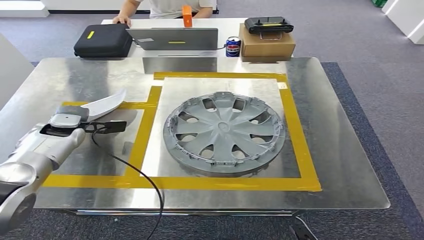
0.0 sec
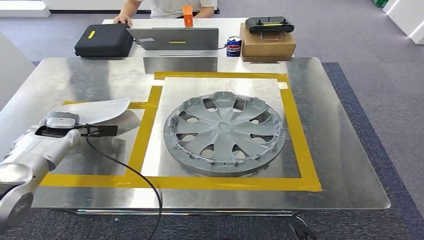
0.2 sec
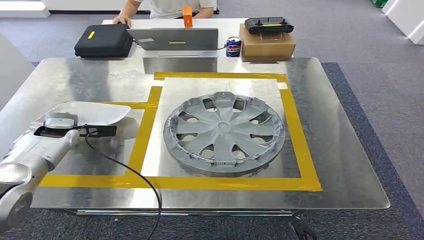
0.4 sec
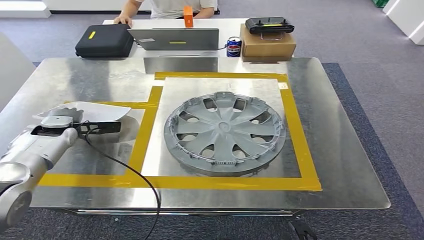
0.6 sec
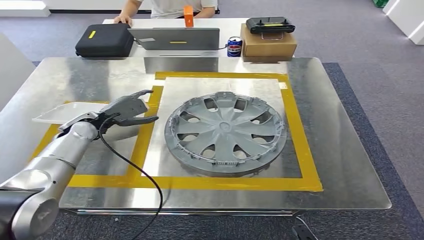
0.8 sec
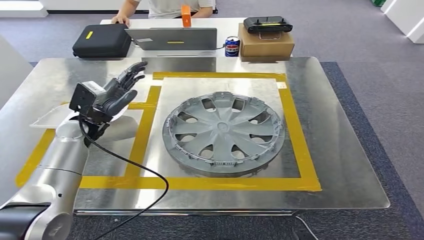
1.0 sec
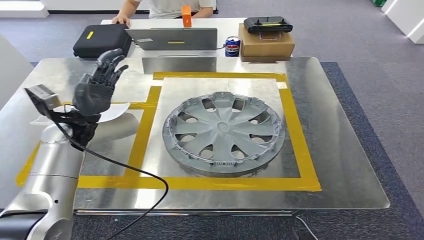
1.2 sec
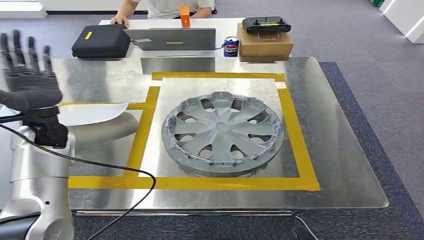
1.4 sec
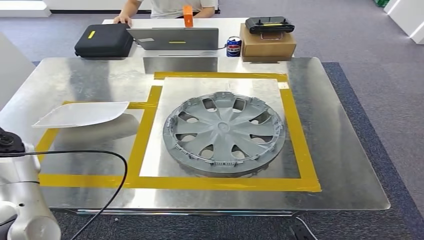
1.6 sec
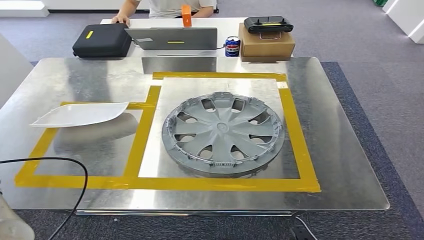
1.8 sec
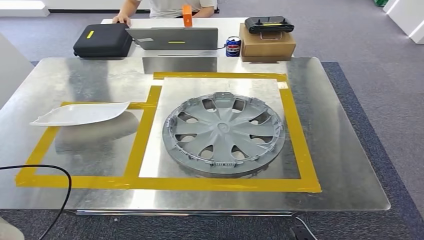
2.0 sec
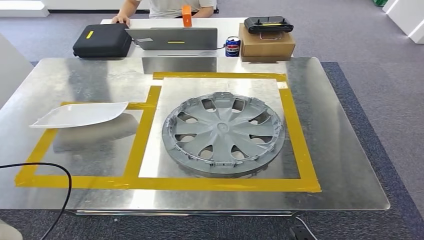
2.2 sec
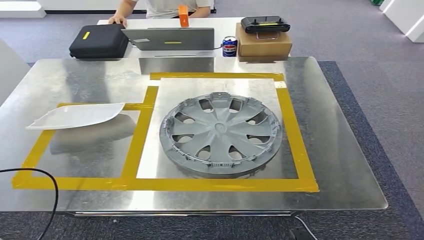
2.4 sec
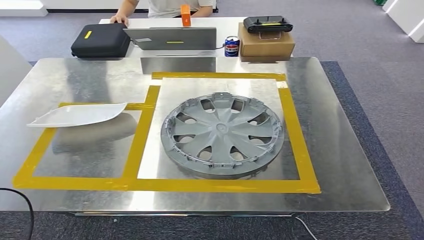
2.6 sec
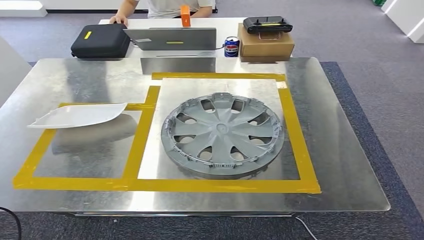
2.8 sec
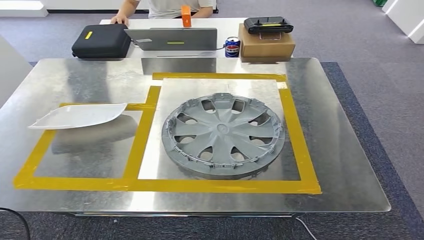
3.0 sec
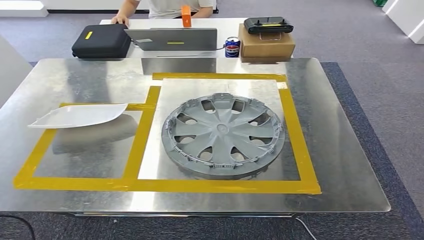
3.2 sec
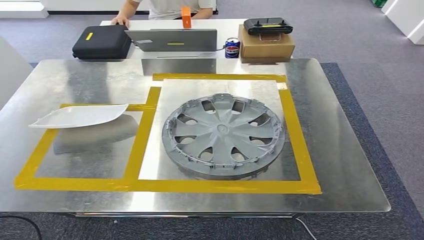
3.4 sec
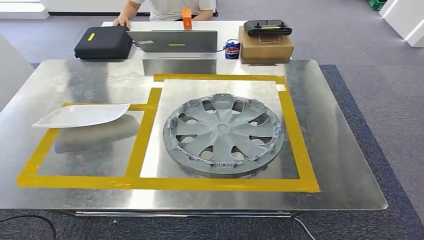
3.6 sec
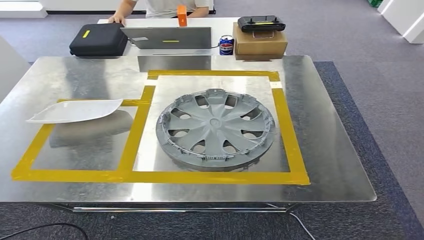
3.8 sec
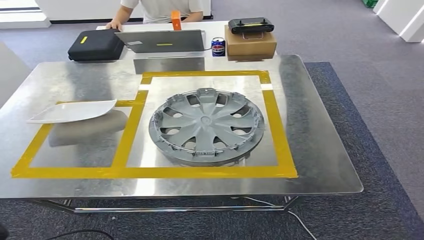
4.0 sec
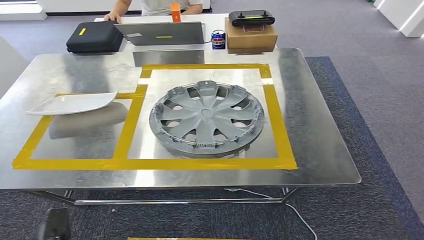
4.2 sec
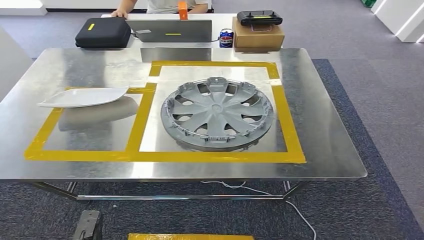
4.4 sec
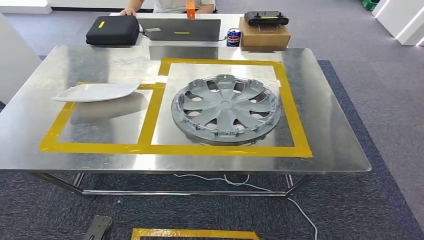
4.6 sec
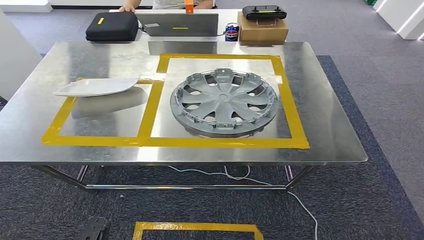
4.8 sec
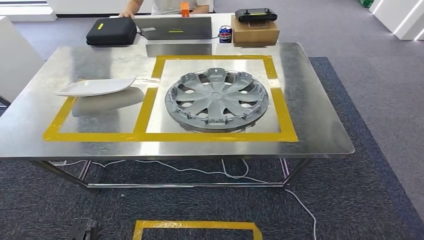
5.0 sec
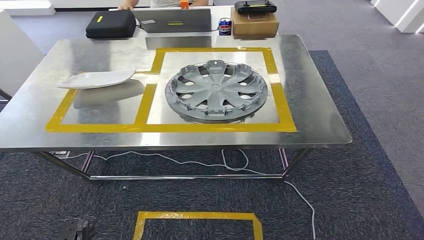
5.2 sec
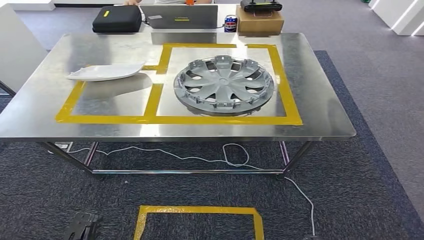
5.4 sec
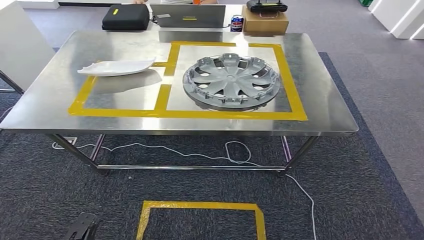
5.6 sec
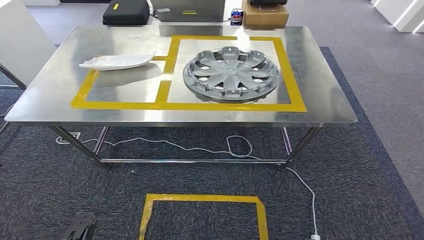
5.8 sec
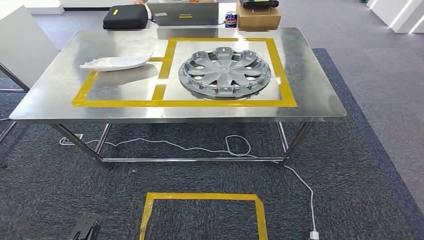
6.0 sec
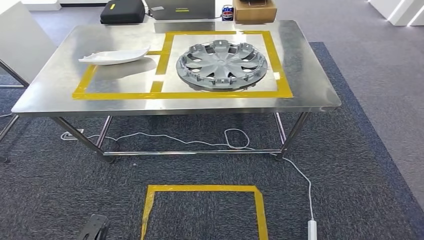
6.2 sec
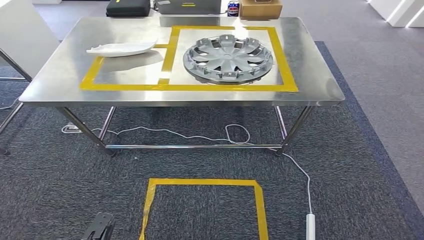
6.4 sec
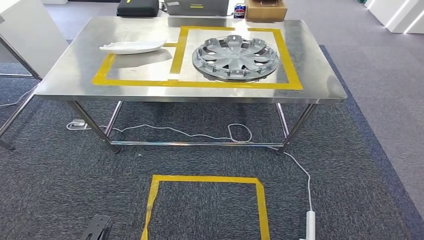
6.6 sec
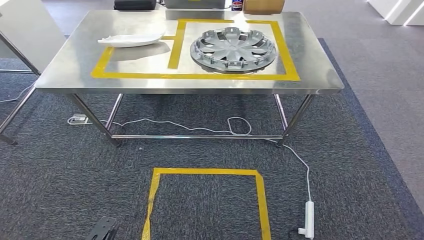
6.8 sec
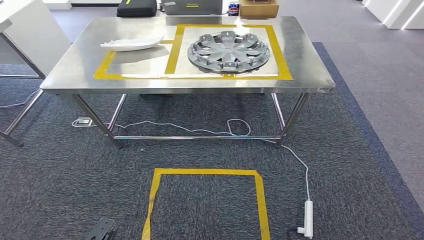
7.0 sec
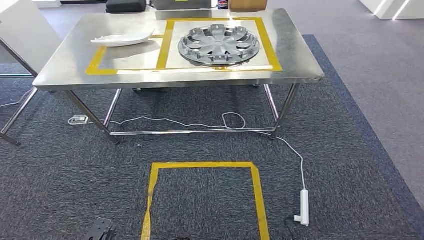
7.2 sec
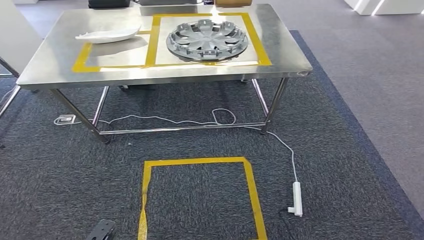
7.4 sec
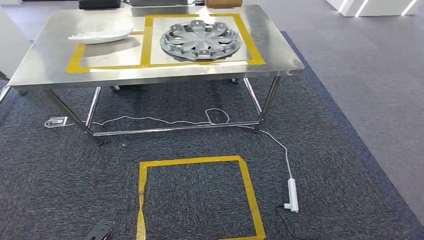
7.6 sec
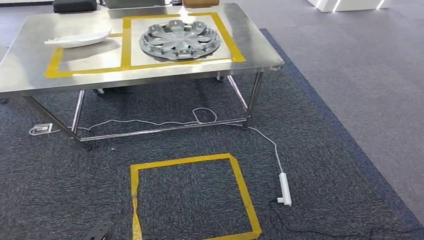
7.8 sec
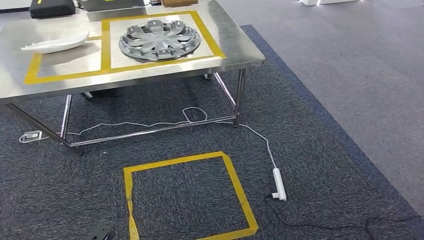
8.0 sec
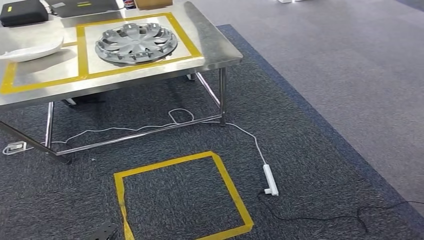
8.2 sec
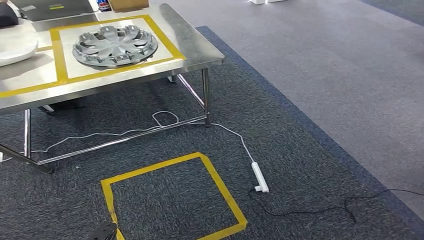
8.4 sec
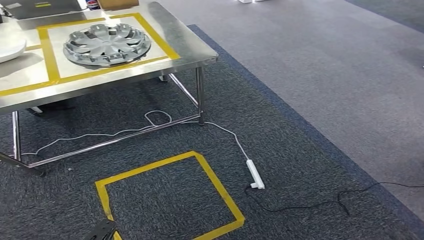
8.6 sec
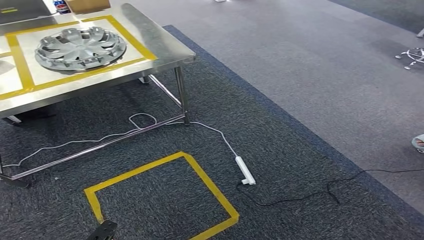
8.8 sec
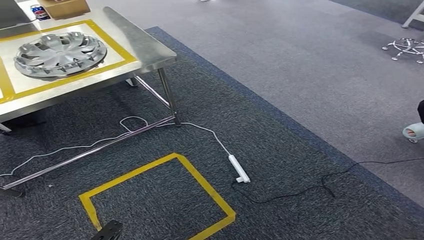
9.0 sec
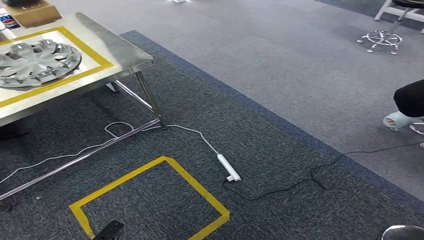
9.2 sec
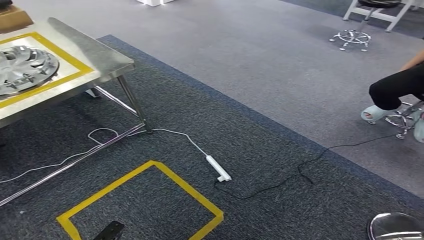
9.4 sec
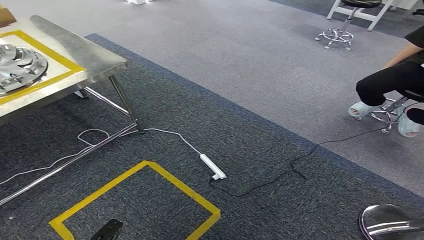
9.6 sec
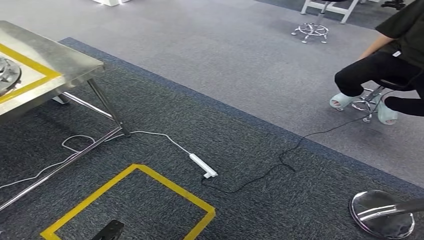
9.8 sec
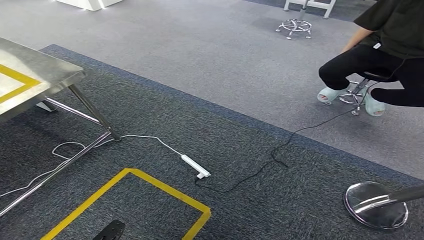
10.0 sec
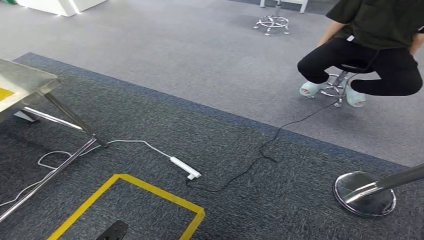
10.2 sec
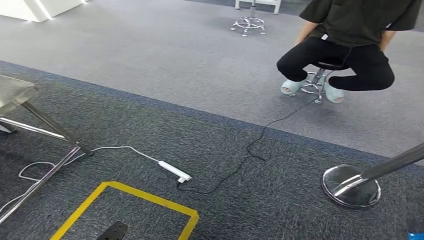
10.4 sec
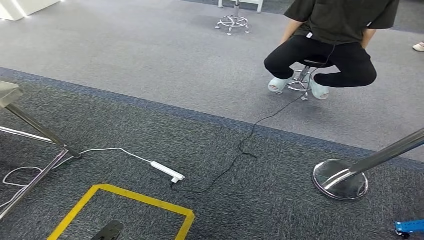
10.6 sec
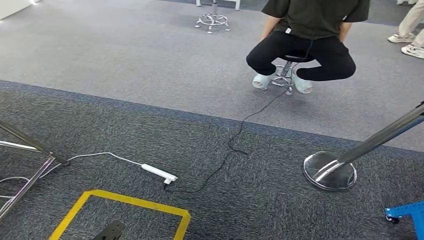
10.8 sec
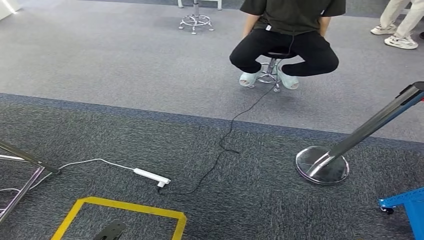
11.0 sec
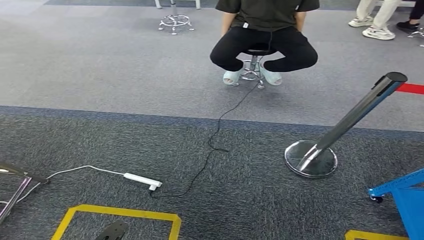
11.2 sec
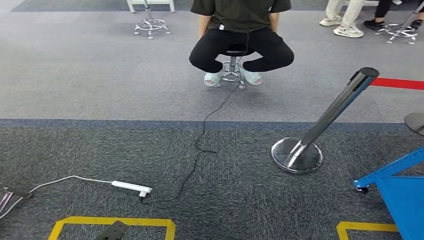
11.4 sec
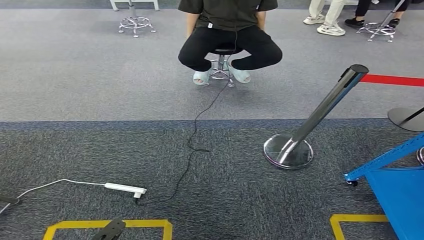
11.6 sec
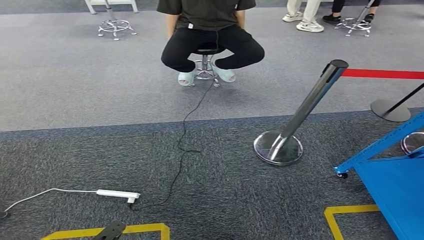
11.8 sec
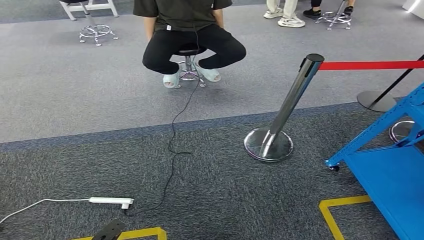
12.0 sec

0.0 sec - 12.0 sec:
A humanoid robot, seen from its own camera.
Step, 0.0 sec - 2.2 sec: Insert the small parts into the corresponding holes on the workbench.
0.0 sec - 1.6 sec: The left hand goes approximately 10 cm backward, to the left and upward.
1.6 sec - 3.0 sec: The left hand shifts about 40 cm backward, to the left and downward; the right hand shifts some 5 cm backward.

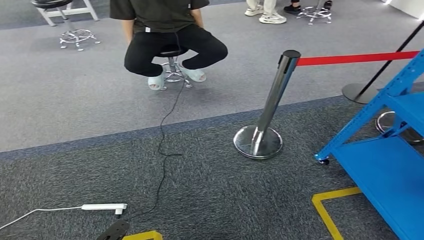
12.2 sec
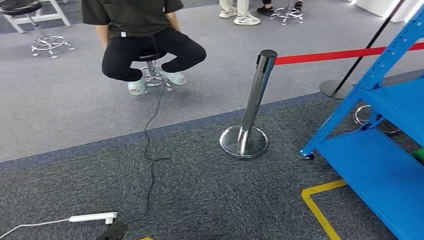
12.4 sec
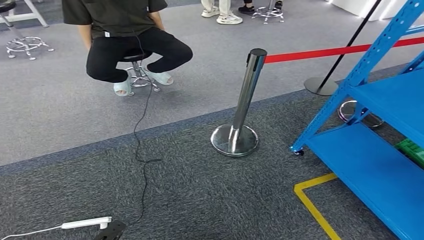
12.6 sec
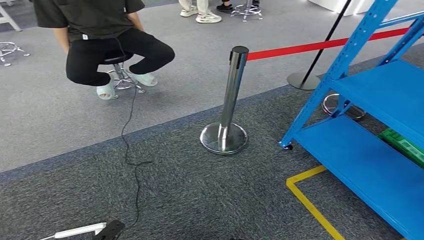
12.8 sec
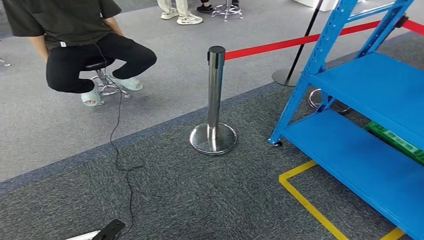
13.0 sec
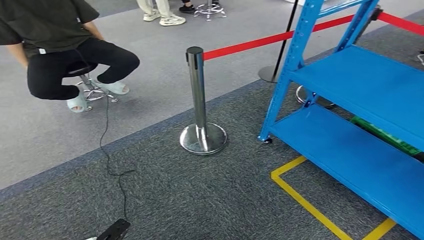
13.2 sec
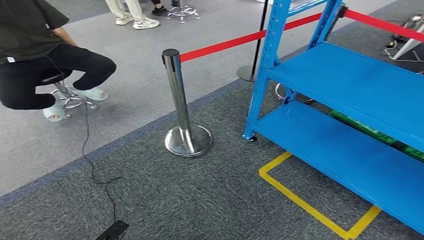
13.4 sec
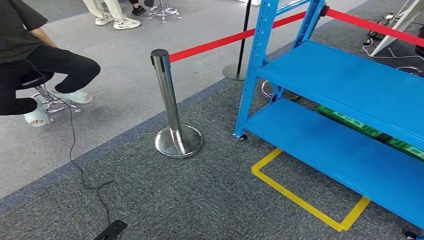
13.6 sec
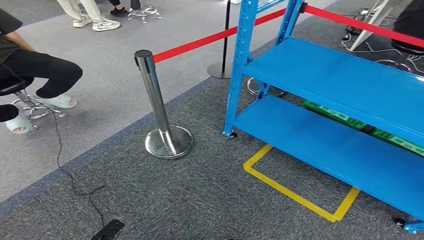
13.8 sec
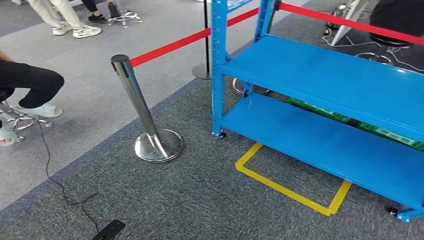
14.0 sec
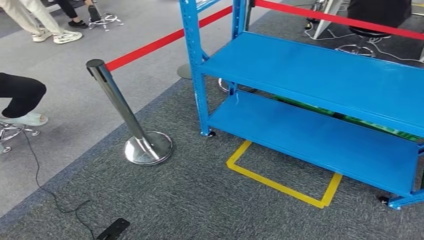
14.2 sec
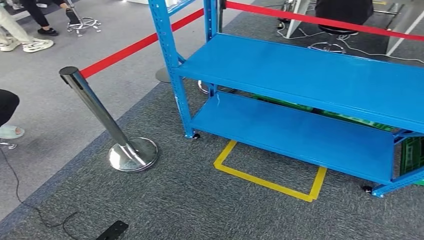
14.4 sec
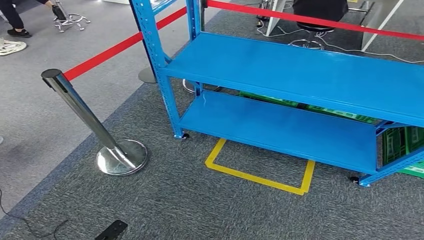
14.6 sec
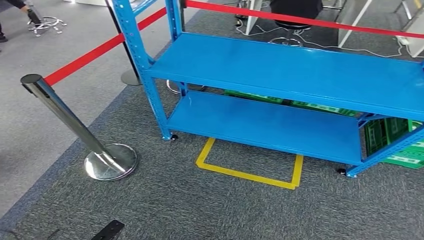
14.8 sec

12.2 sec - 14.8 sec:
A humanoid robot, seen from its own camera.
Step, 12.2 sec - 14.6 sec: Move to the initial position of the workbench.
